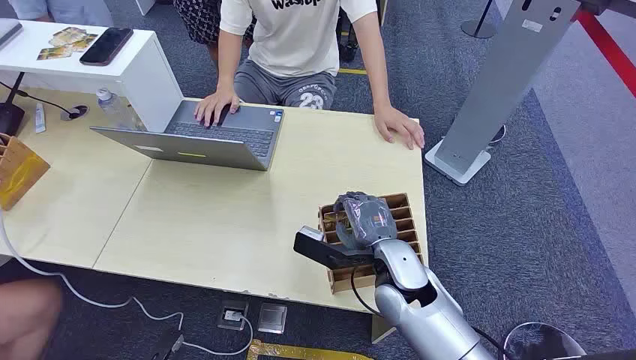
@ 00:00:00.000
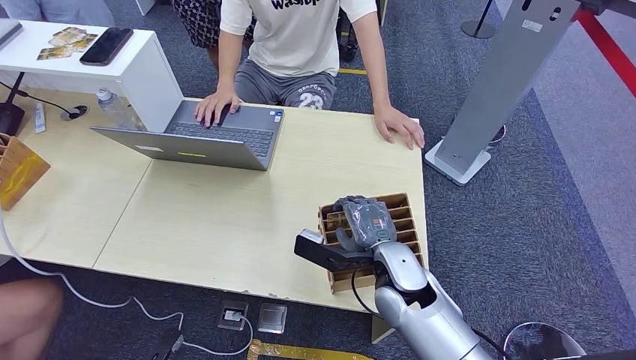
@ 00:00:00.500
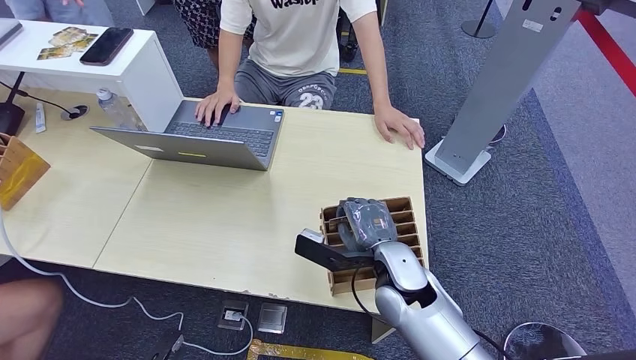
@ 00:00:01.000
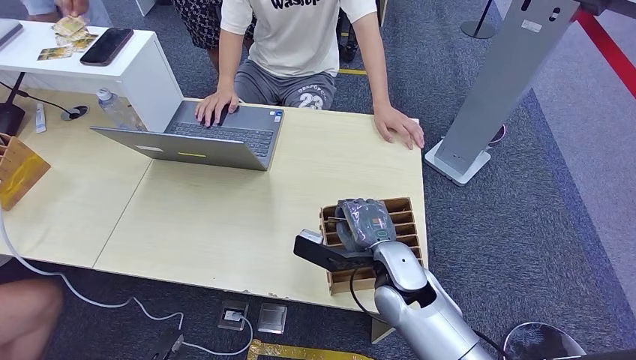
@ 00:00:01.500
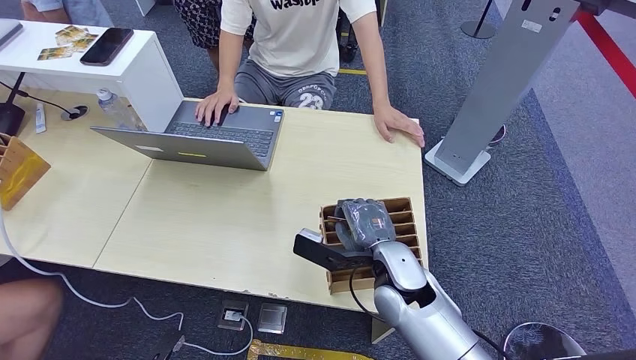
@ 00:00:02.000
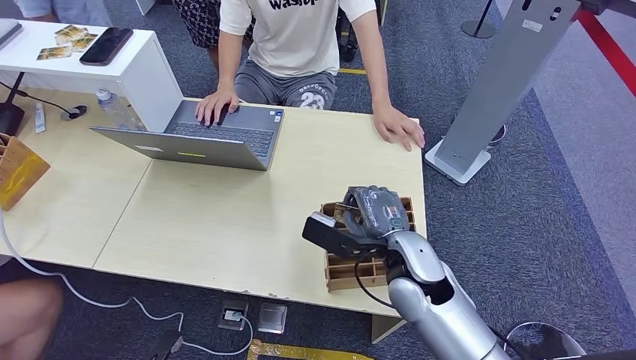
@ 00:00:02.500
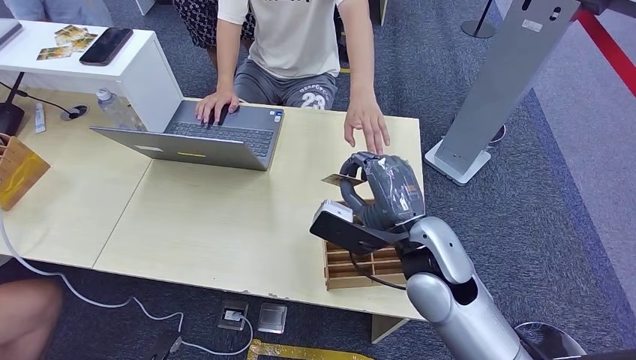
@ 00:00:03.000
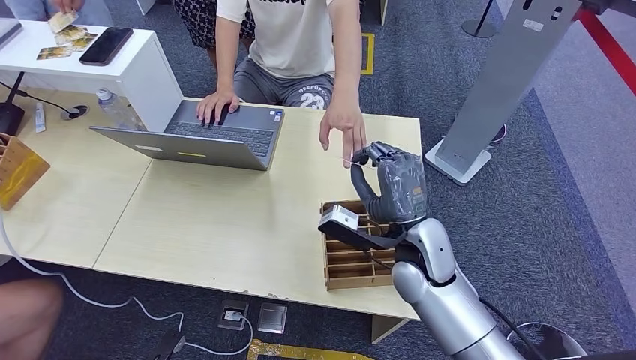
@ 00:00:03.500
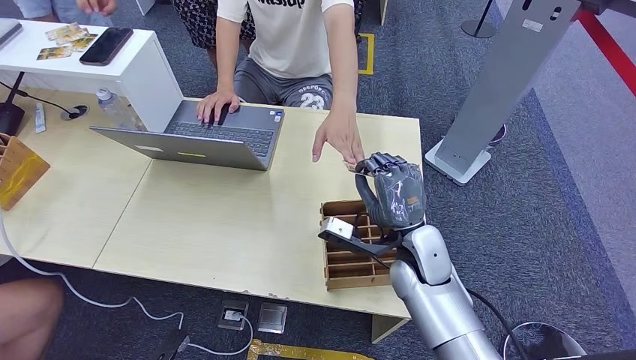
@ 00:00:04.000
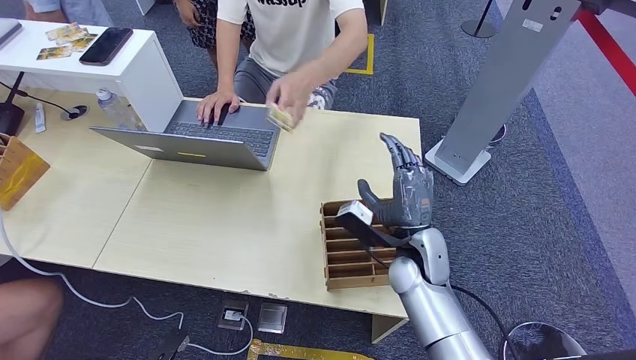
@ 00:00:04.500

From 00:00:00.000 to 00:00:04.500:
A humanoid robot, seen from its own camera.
Step, from 00:00:00.000 to 00:00:02.500: Pick up the room card from the card holder.
Step, from 00:00:03.000 to 00:00:04.500: Hand the room card to the target.
From 00:00:02.000 to 00:00:04.500: The right hand reaches roughly 10 cm upward, then returns.

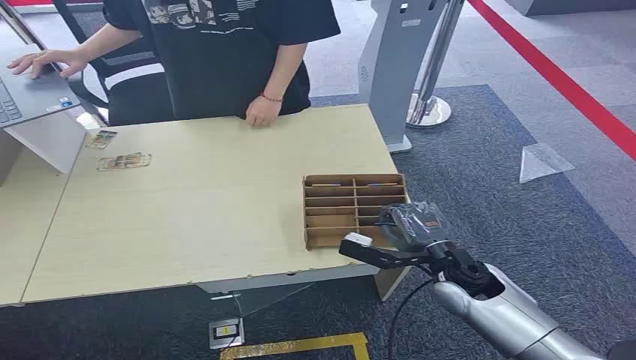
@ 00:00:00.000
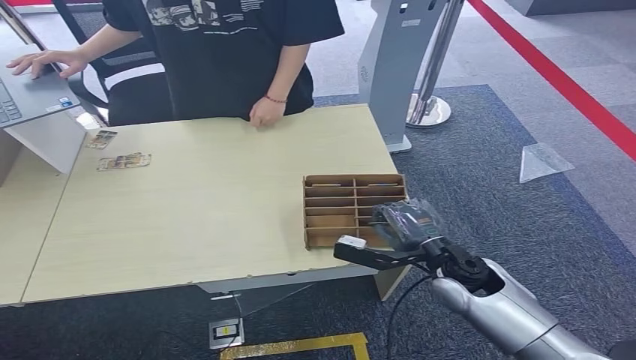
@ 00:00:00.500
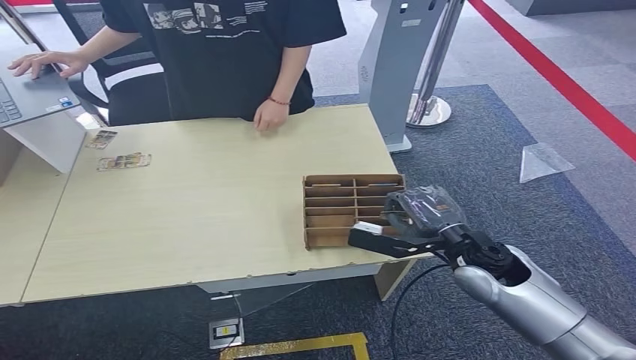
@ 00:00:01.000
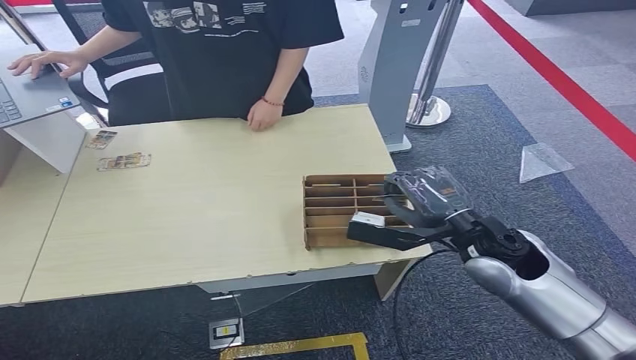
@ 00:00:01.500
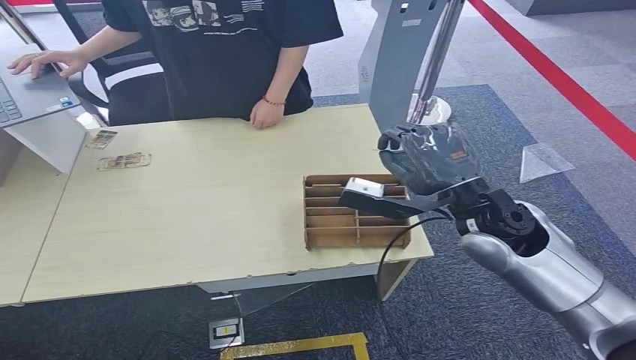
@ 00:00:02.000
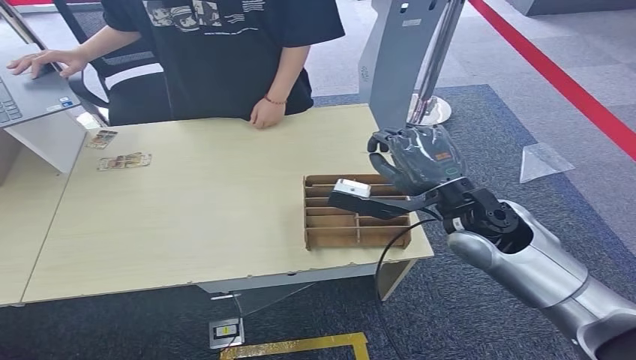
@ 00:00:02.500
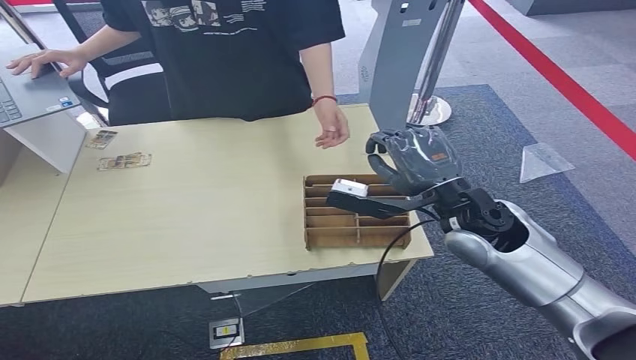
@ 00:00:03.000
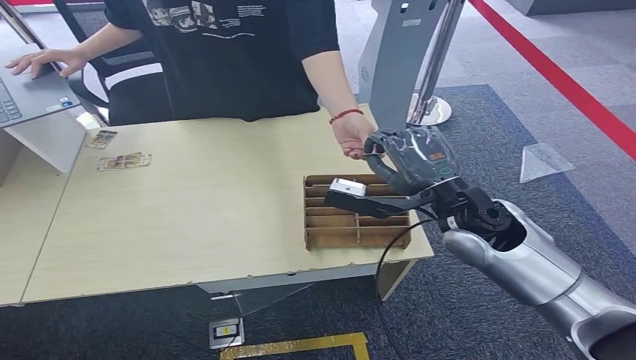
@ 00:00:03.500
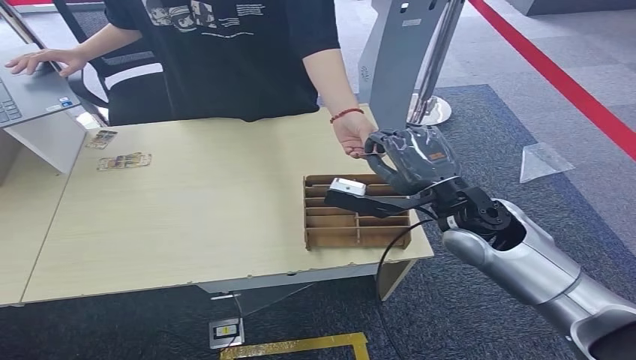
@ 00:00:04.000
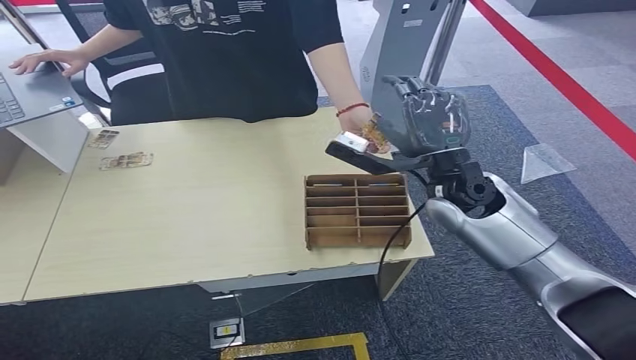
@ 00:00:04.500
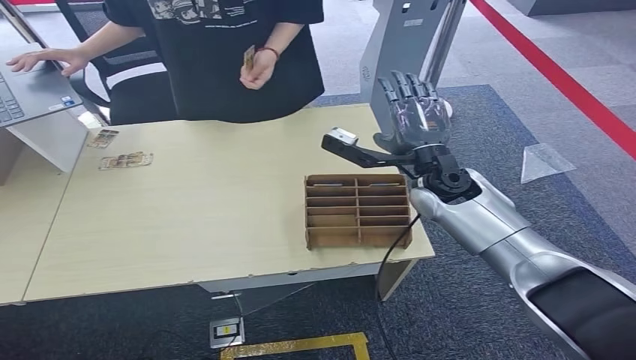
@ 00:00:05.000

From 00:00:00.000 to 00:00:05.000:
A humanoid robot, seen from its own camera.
Step, from 00:00:00.000 to 00:00:02.000: Pick up the room card from the card holder.
Step, from 00:00:02.500 to 00:00:05.000: Hand the room card to the target.
From 00:00:02.500 to 00:00:05.000: The right hand goes some 10 cm forward.
